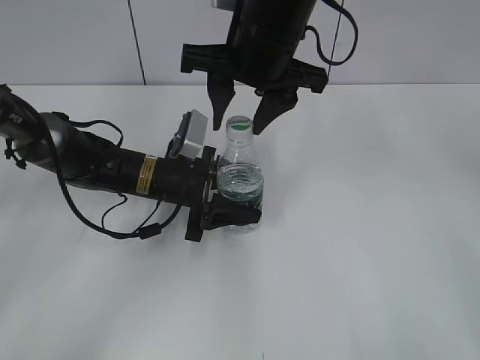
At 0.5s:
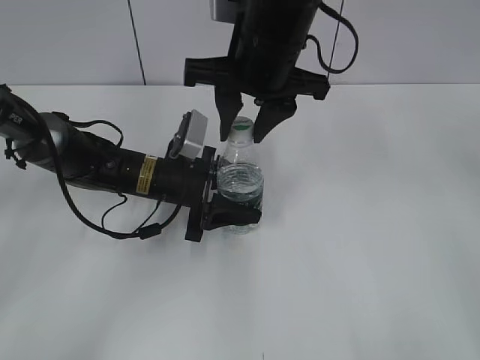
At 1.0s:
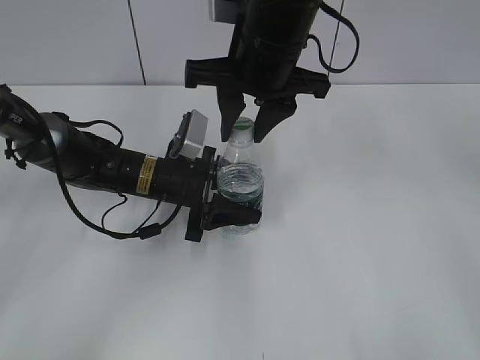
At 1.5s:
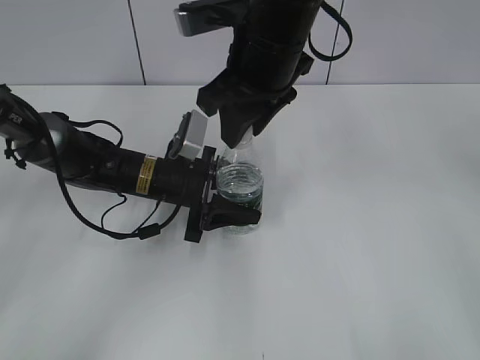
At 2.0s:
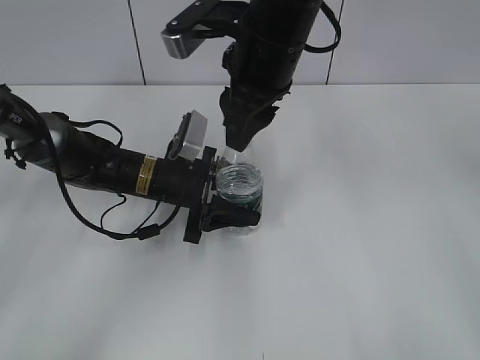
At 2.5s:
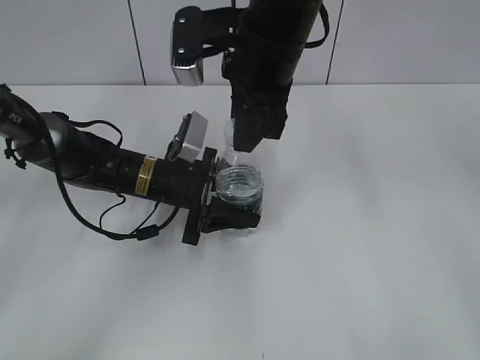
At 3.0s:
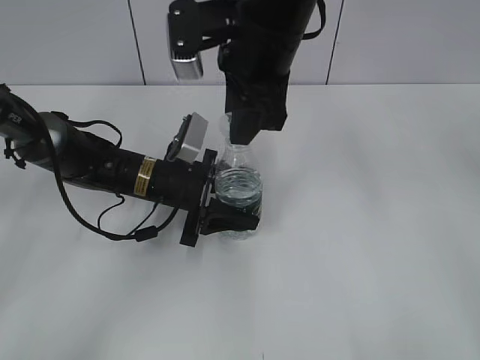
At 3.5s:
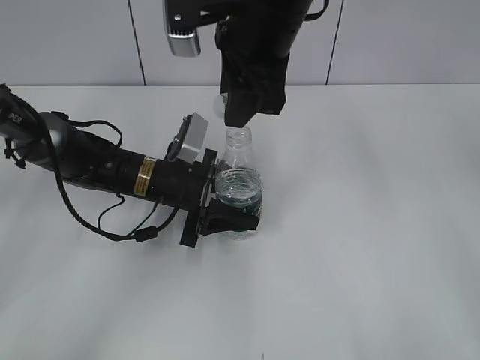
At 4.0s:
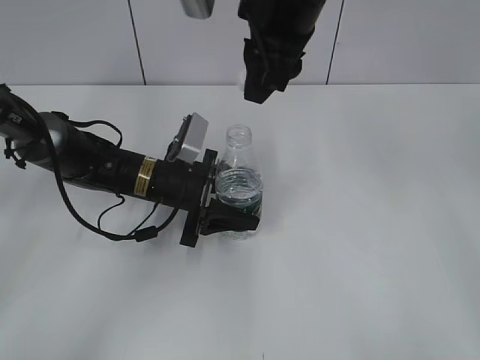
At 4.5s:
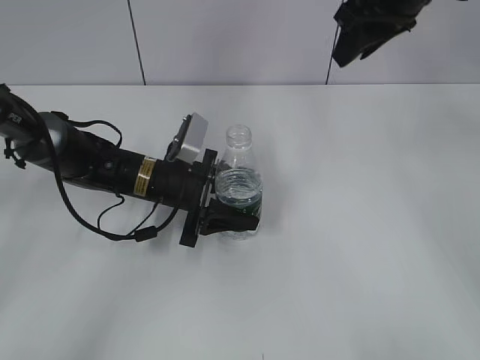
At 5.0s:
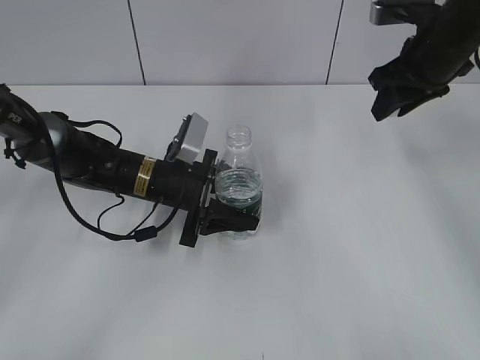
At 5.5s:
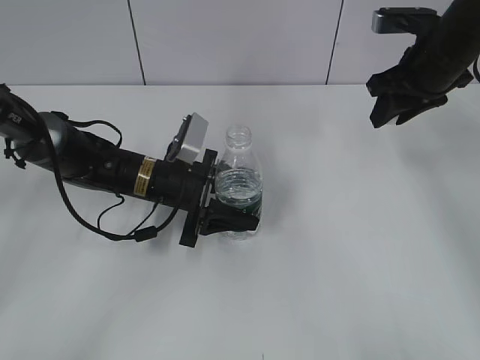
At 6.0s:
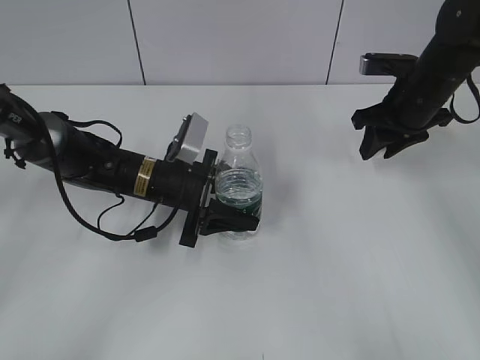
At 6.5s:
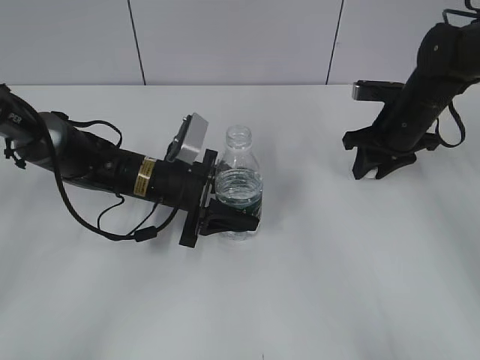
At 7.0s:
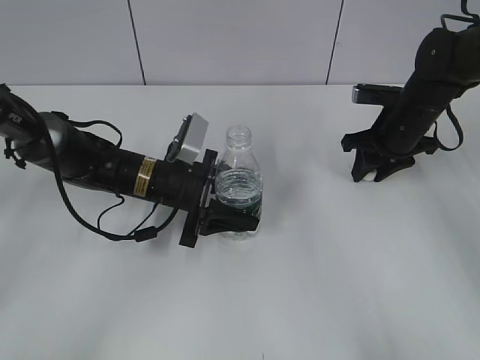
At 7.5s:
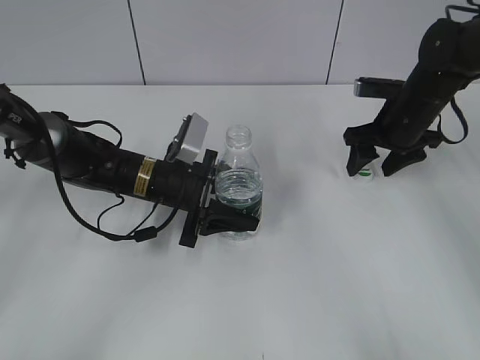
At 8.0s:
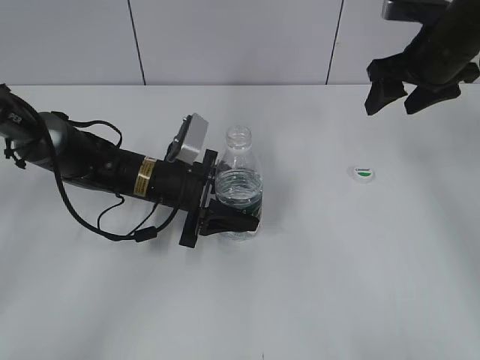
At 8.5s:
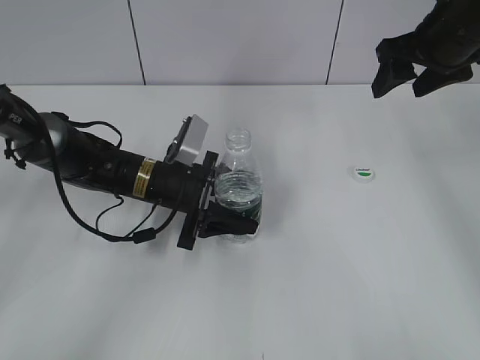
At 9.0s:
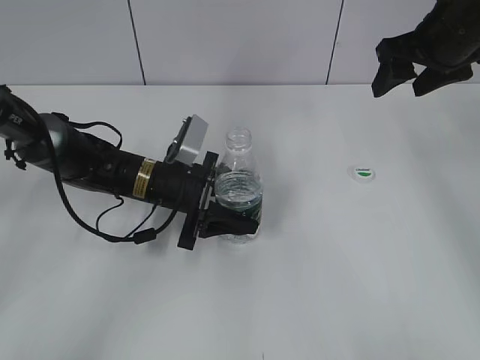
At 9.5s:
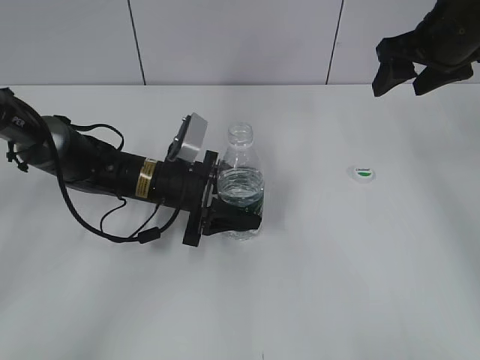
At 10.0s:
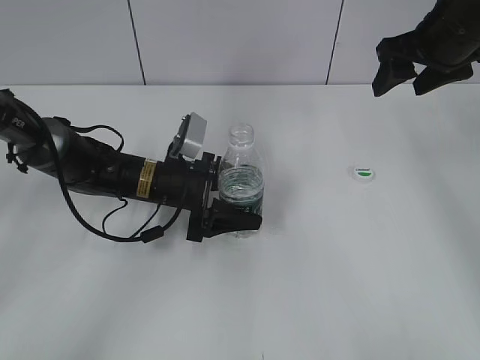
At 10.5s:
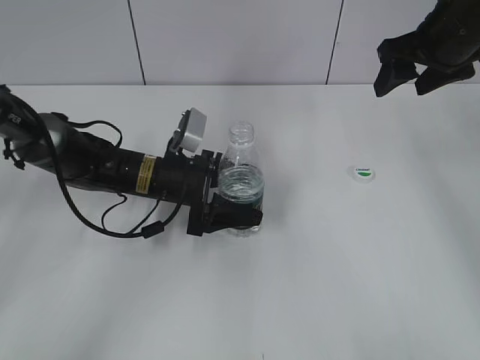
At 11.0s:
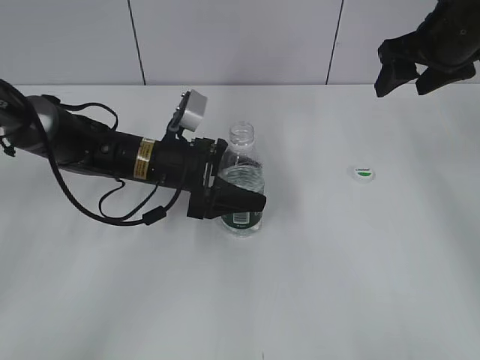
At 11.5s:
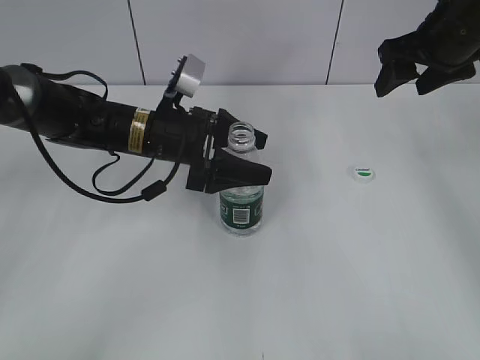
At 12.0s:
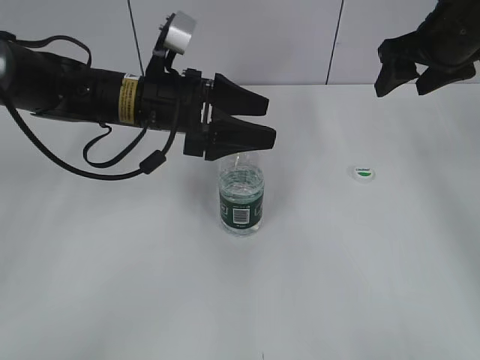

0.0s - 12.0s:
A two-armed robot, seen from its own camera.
Step, 0.0s - 3.5s: Unscrew the bottle cap with the right gripper while holding the bottle with the left gripper.
Step, 4.0s - 7.5s: Place the bottle cap on the table with the right gripper.
Step, 8.0s - 10.5s: Place the bottle on the table with the left gripper.
0.0s - 2.0s: The right gripper closes up.
2.0s - 4.0s: The right gripper changes place by about 5 cm.
4.0s - 6.0s: The right gripper goes approximately 25 cm to the right, downward and forward.
6.0s - 8.0s: The right gripper heads upward, covering approximately 5 cm, and opens.
8.0s - 10.0s: The left gripper opens its fingers.
10.0s - 12.0s: The left gripper travels upward by approximately 10 cm, and opens up.

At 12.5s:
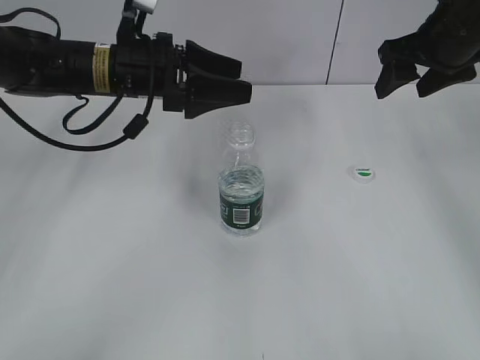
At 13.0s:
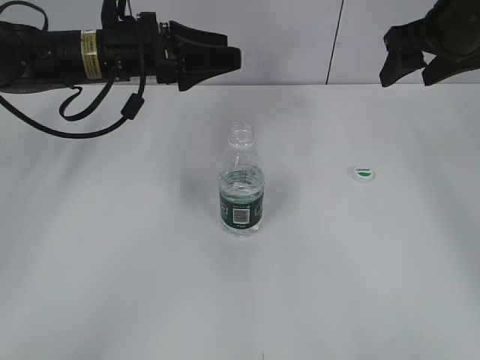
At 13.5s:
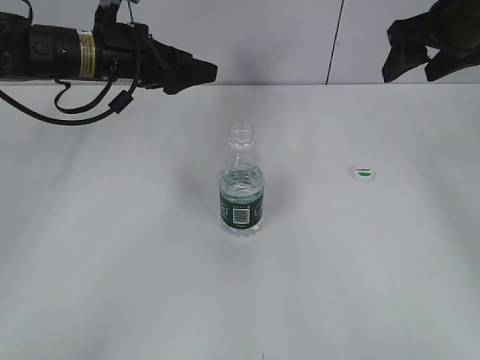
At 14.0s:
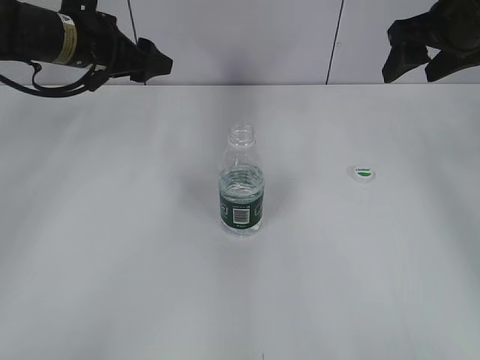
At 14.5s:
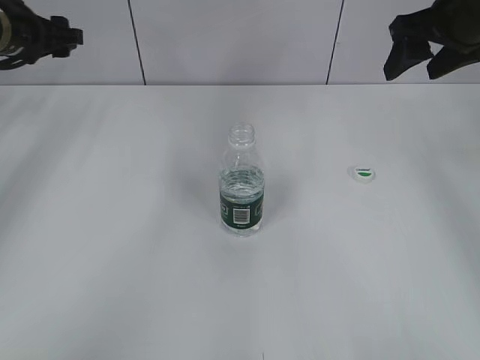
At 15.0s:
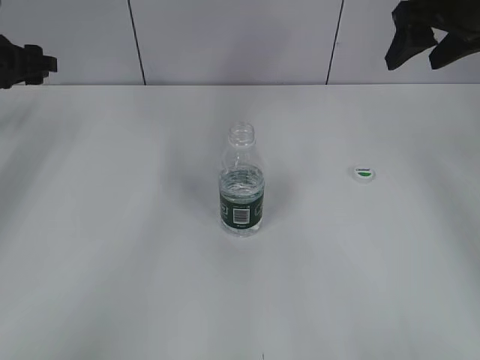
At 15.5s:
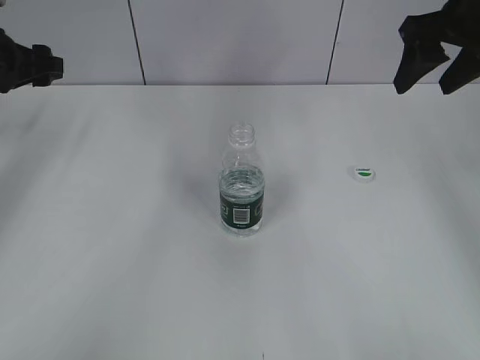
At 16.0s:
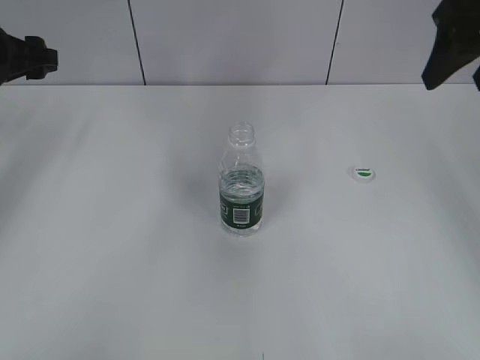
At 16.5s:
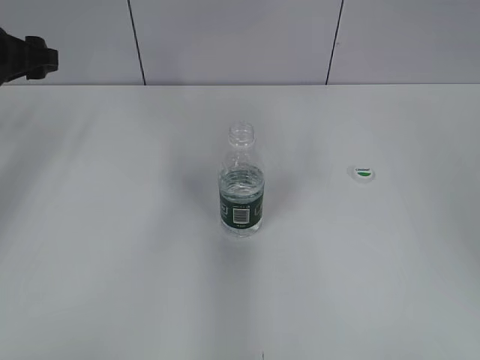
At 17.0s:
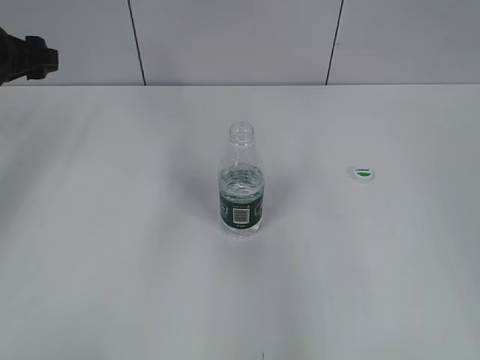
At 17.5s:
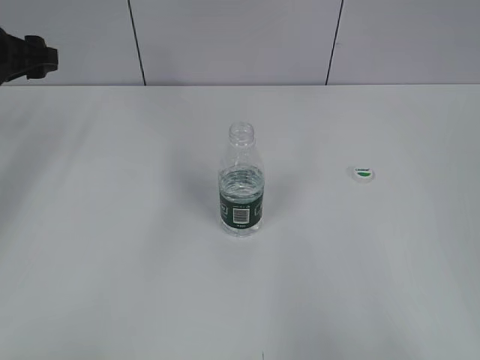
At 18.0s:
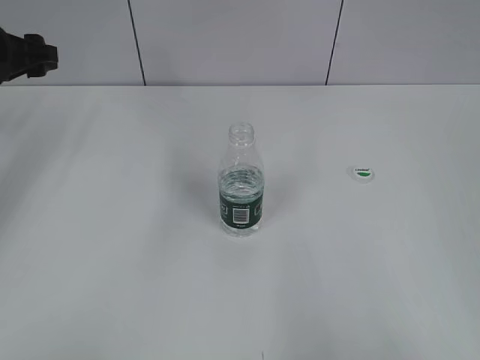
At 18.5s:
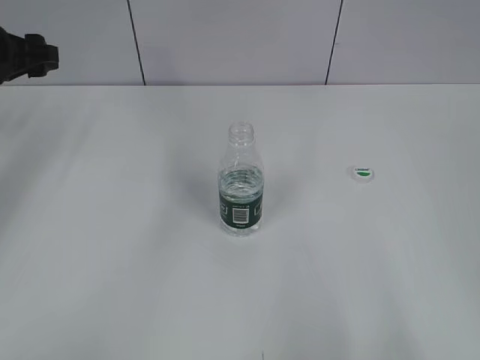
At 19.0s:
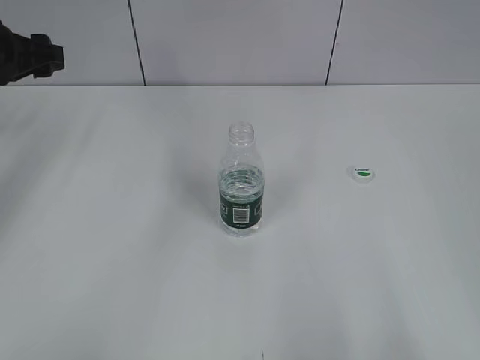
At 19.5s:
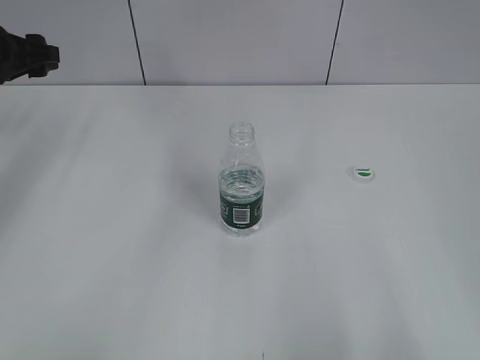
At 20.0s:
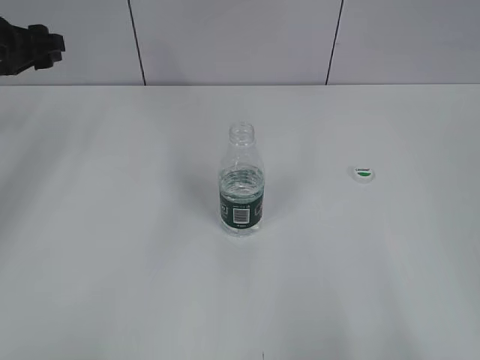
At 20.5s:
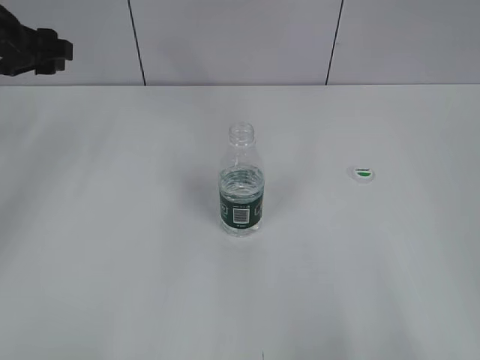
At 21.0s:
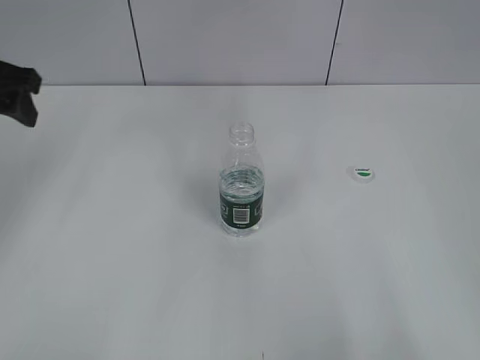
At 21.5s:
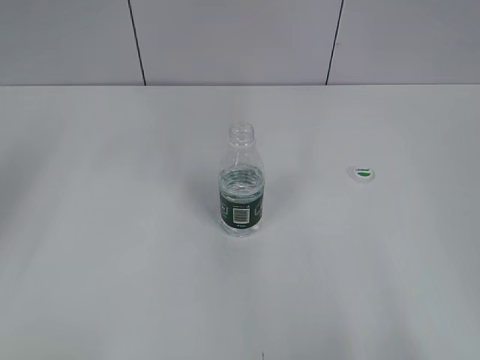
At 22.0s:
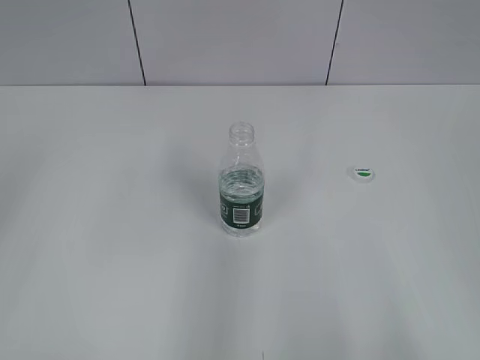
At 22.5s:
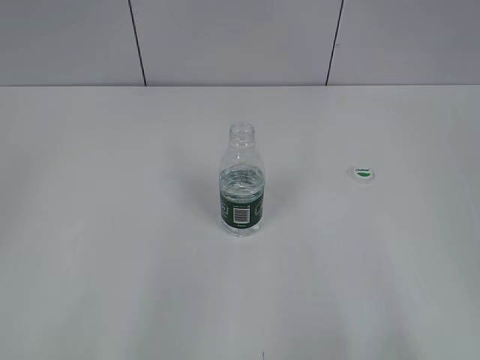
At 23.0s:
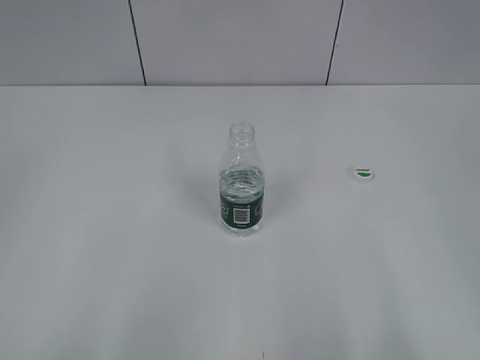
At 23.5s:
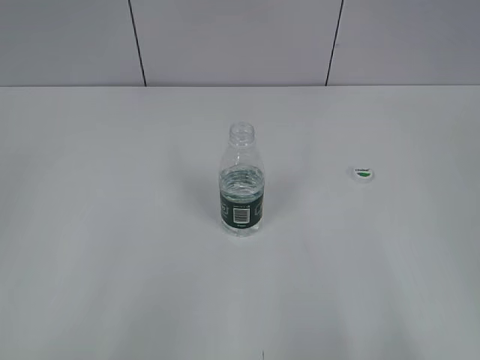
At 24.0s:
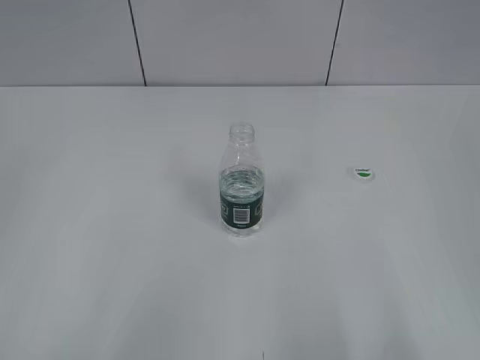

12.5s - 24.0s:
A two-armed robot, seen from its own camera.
12.5s - 14.5s: The left gripper shifts approximately 20 cm to the left and forward, and closes its fingers.
14.5s - 16.5s: The right gripper travels backward by roughly 20 cm.
16.5s - 18.5s: The right gripper goes some 20 cm backward.
20.0s - 22.0s: The left gripper travels backward by some 30 cm.
22.0s - 24.0s: The left gripper goes roughly 15 cm backward.

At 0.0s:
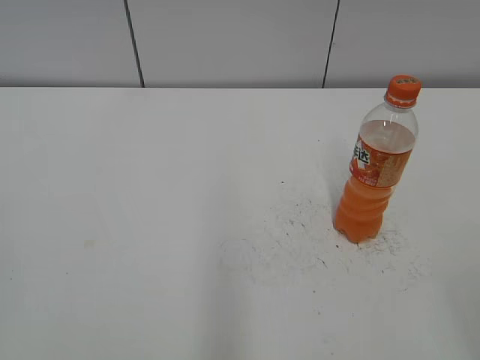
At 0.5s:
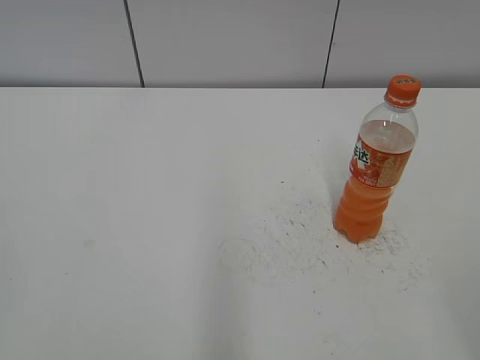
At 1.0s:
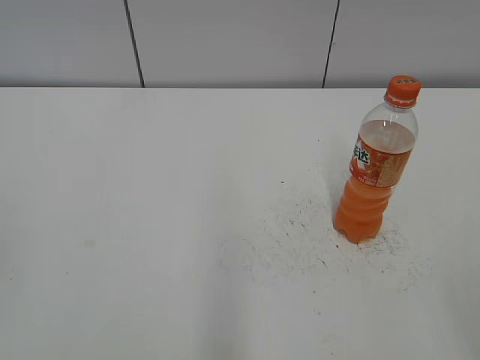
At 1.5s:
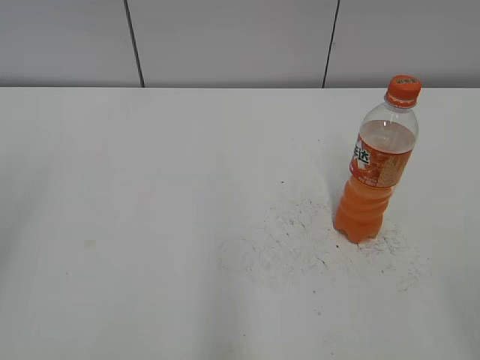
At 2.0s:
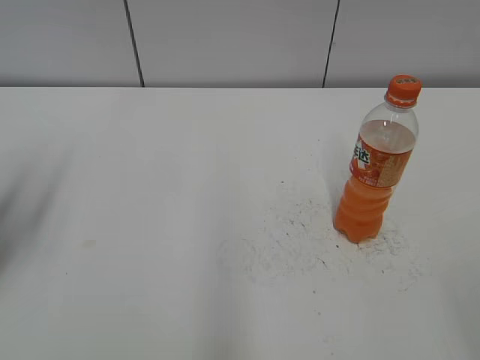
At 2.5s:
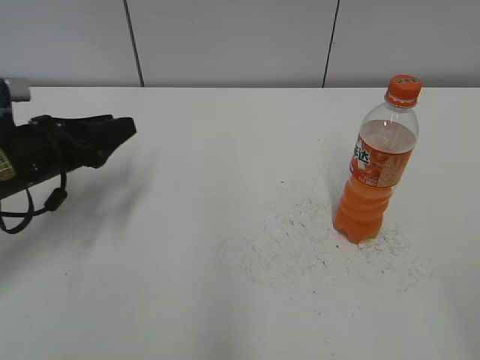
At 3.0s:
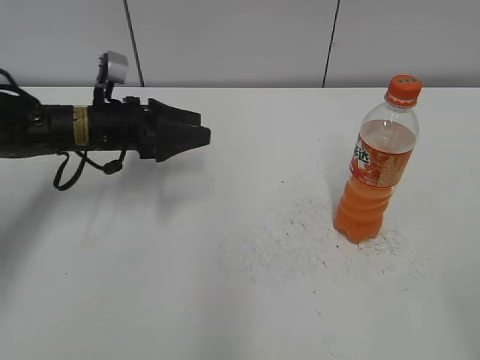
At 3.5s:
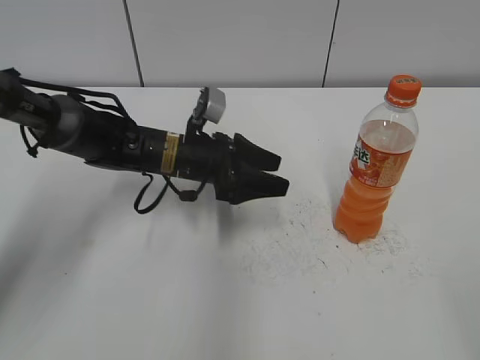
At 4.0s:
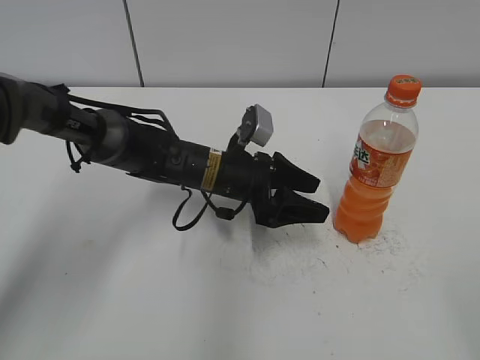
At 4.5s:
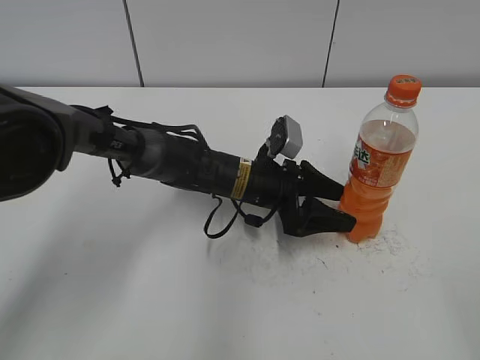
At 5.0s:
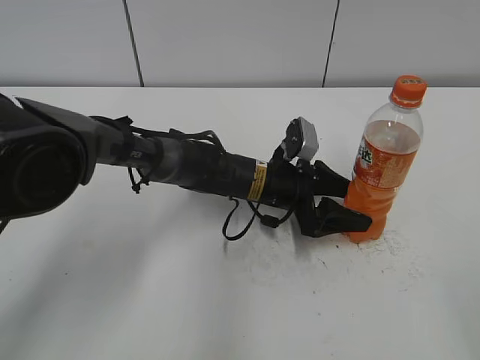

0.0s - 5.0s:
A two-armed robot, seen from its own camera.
2.5s - 5.0s: The left gripper travels to the right by some 30 cm, and opens its fingers.
